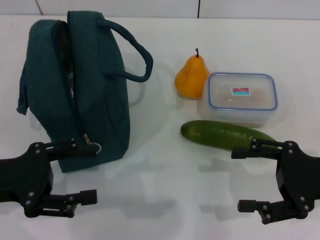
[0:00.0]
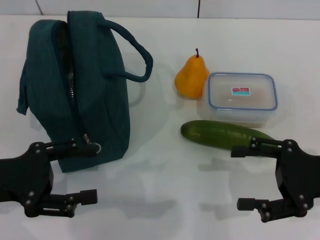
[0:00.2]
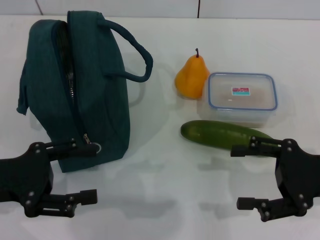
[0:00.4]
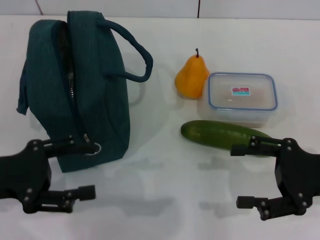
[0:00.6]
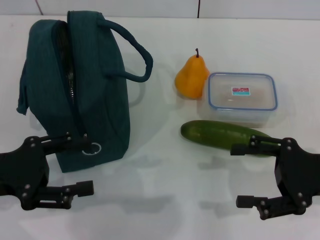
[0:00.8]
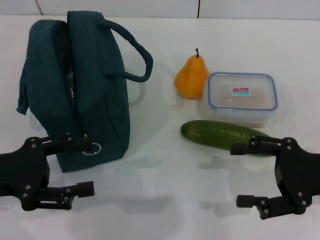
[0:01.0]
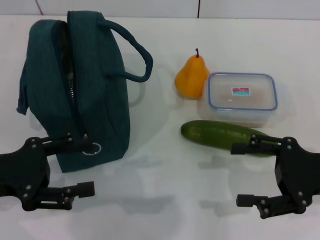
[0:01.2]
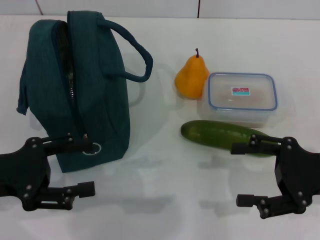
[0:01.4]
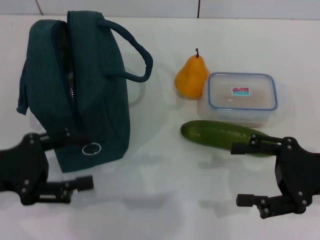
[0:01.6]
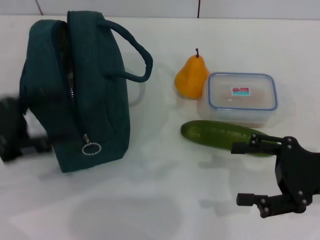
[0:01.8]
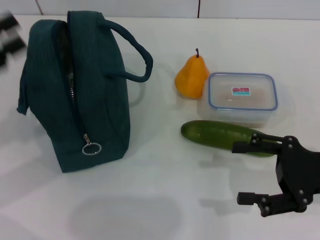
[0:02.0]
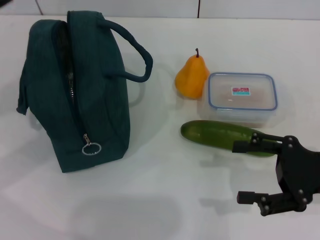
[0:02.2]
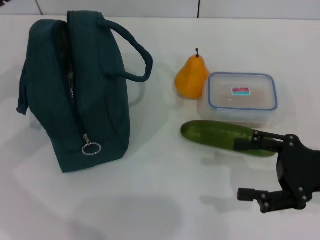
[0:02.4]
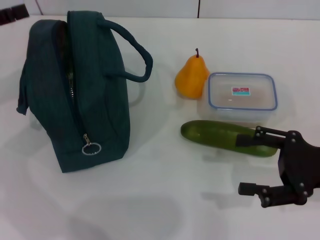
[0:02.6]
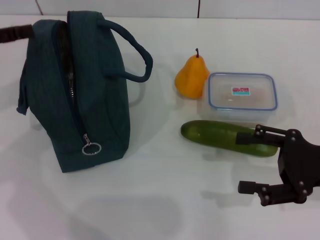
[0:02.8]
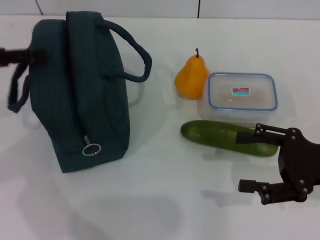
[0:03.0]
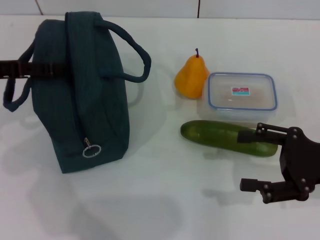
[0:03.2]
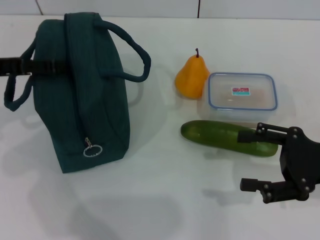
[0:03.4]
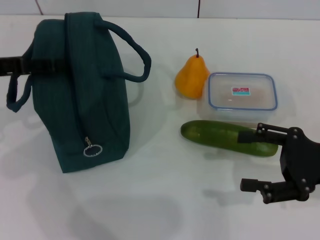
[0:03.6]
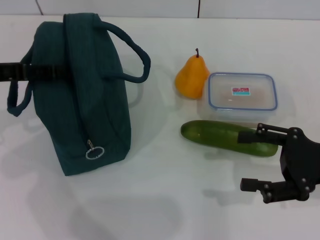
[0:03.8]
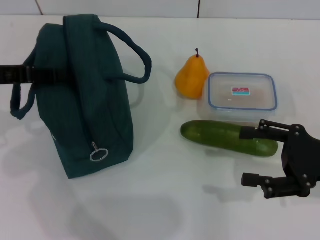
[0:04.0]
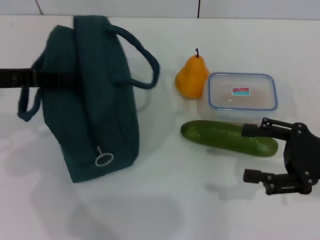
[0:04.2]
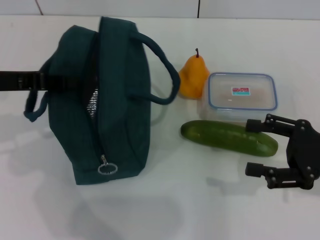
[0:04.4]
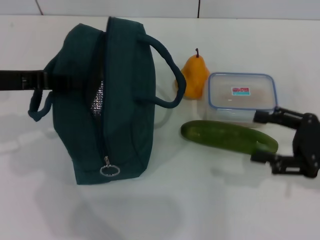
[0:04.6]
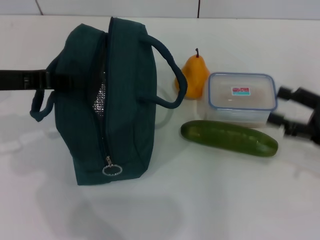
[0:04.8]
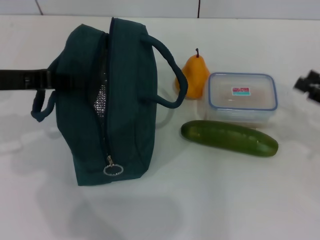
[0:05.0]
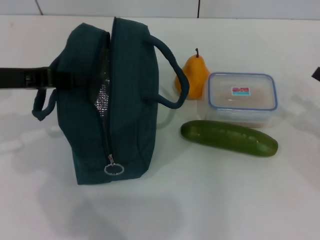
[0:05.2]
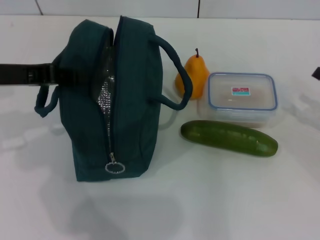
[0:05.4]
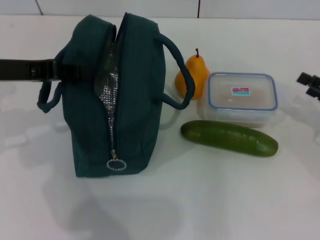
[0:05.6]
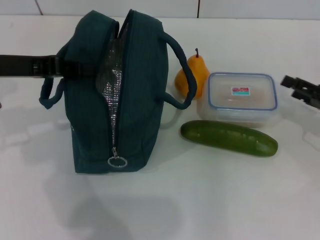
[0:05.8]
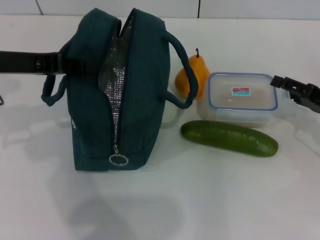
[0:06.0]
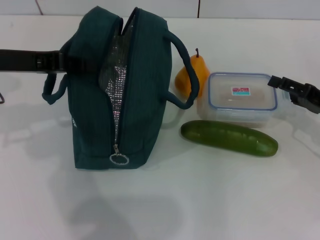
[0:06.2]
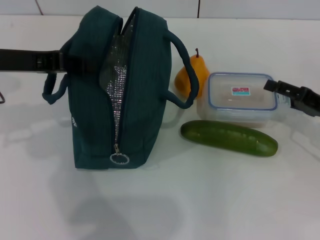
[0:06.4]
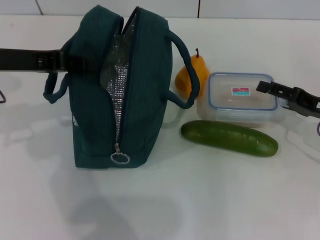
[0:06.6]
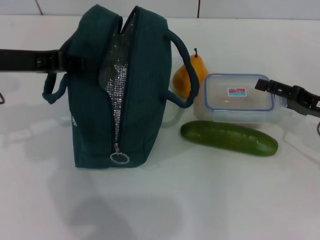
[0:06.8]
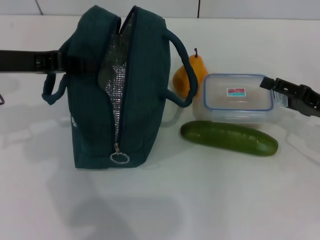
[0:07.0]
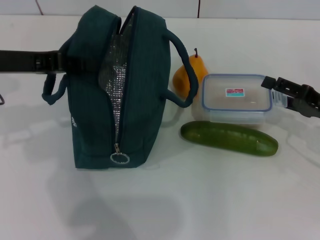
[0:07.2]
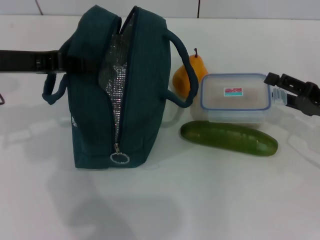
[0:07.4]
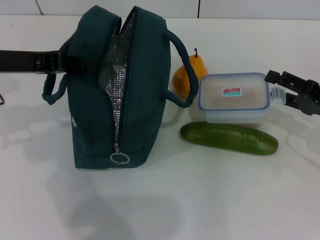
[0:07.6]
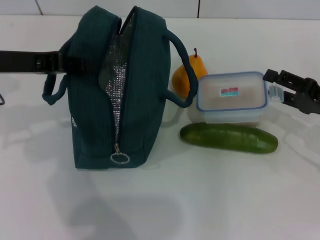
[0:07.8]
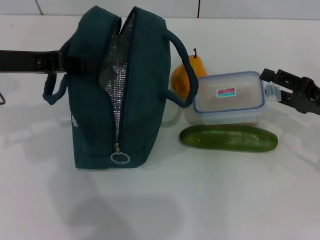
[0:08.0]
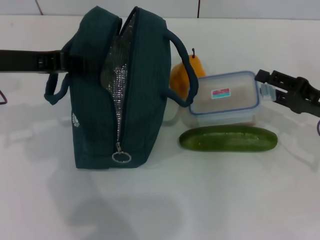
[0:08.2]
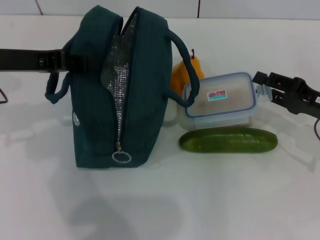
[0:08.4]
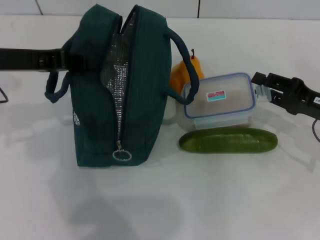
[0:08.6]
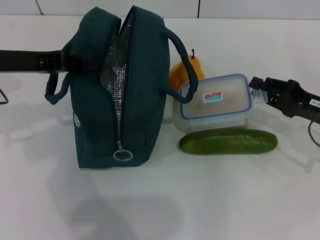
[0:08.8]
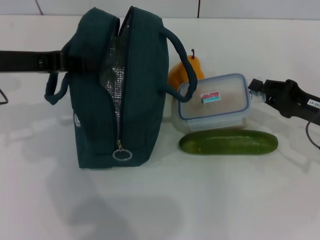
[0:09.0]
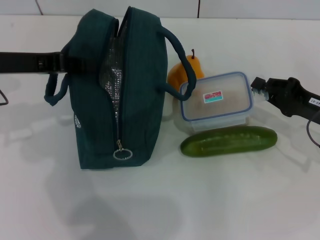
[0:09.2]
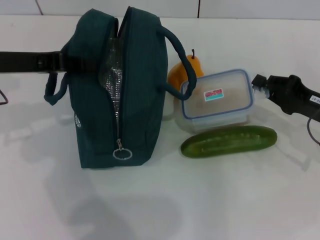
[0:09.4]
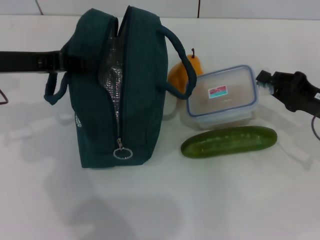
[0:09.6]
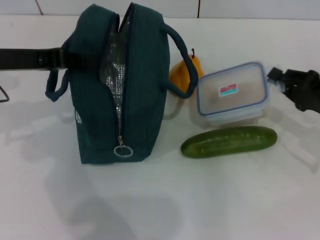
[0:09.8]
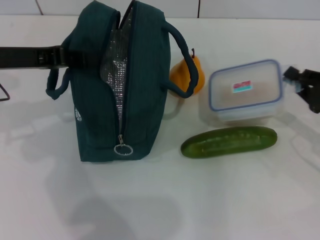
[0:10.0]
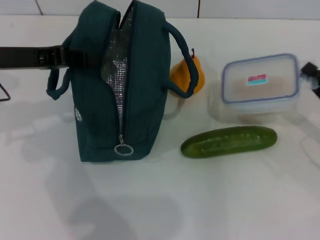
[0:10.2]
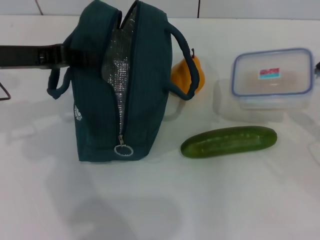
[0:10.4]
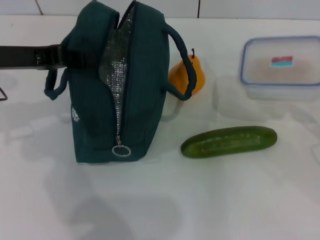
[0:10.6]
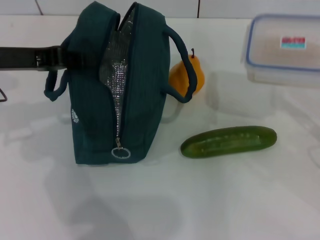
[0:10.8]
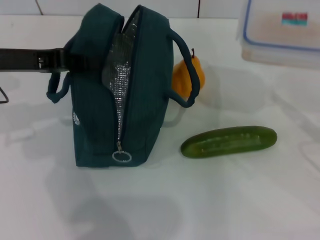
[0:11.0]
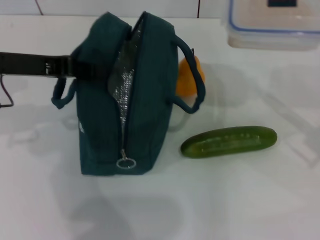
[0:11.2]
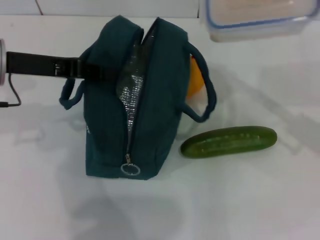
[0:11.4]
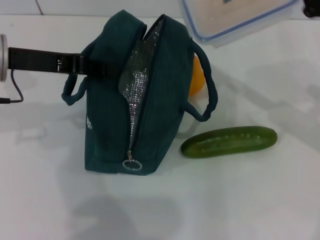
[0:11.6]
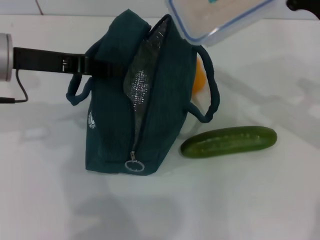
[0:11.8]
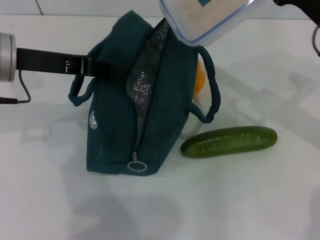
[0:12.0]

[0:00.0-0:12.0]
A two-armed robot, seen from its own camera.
Step, 0:00.0 to 0:05.0: Hold the lunch bag with your left hand.
Step, 0:05.2 to 0:09.4: Pick up the lunch box with your right hand.
0:00.0 to 0:01.6: Both grippers stay about where they are.
0:01.6 to 0:03.0: The left gripper is displaced forward and upward by about 10 cm.
0:03.0 to 0:04.4: The left gripper closes.
0:04.4 to 0:06.0: The right gripper travels forward by some 5 cm.
0:06.0 to 0:07.6: The grippers move only a little.
0:07.6 to 0:09.0: The right gripper closes its fingers.
0:09.0 to 0:10.4: The right gripper goes about 5 cm to the right.
0:10.4 to 0:12.0: The right gripper moves to the left, upward and forward, roughly 15 cm.

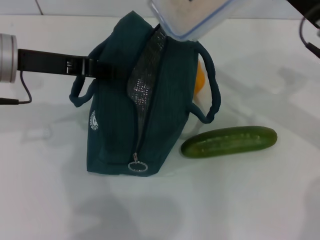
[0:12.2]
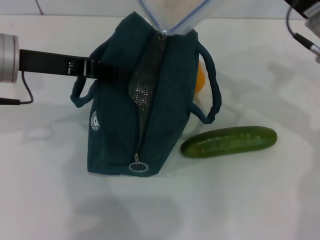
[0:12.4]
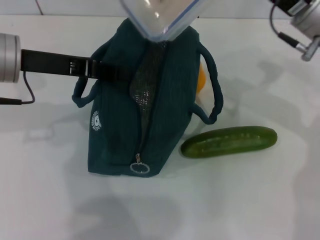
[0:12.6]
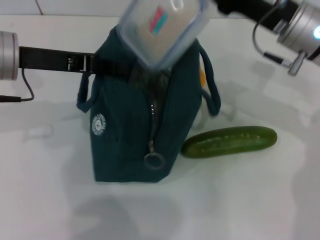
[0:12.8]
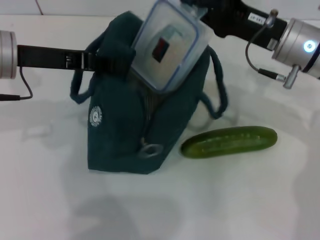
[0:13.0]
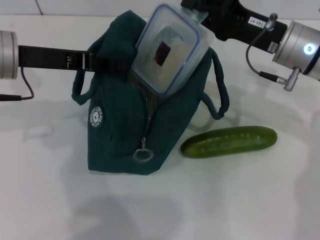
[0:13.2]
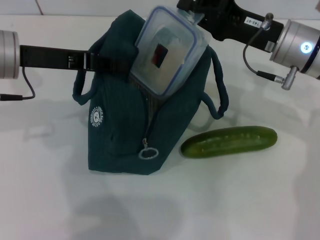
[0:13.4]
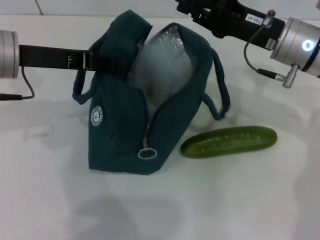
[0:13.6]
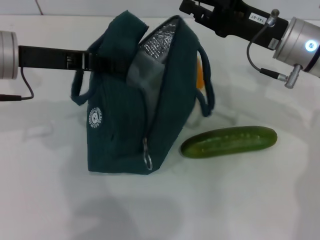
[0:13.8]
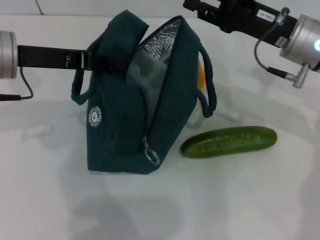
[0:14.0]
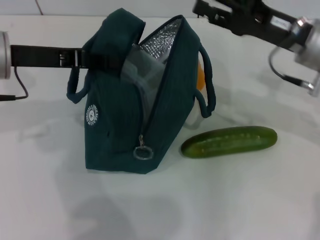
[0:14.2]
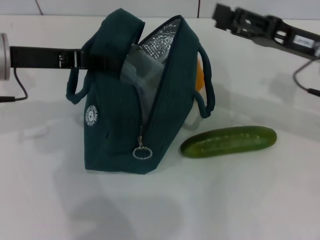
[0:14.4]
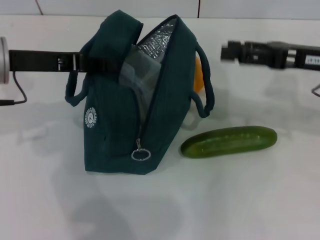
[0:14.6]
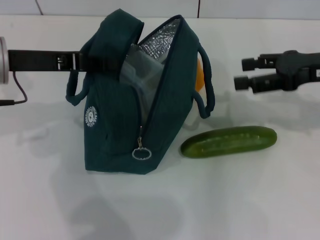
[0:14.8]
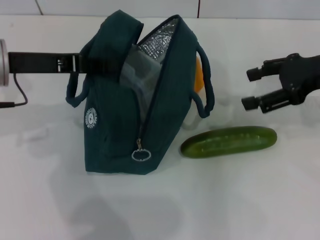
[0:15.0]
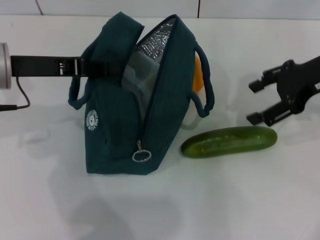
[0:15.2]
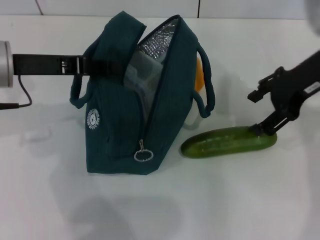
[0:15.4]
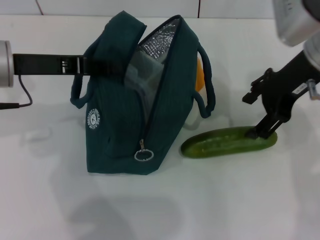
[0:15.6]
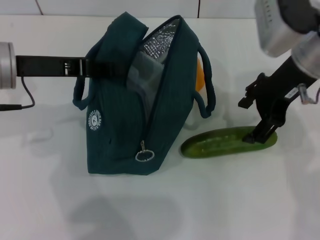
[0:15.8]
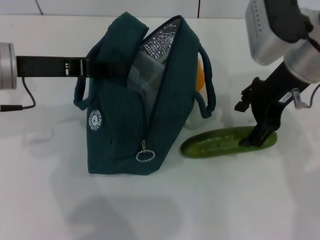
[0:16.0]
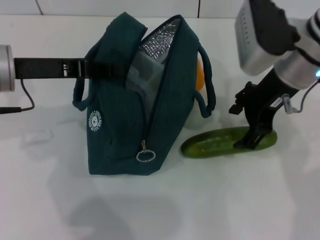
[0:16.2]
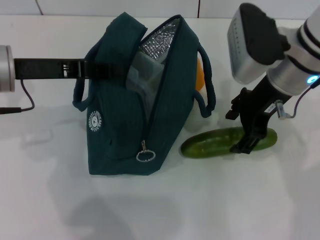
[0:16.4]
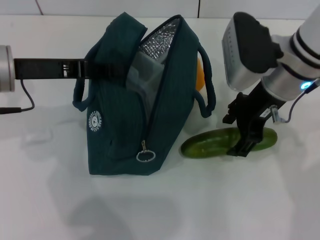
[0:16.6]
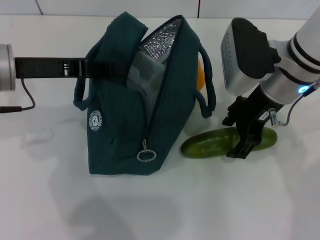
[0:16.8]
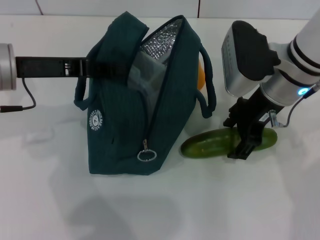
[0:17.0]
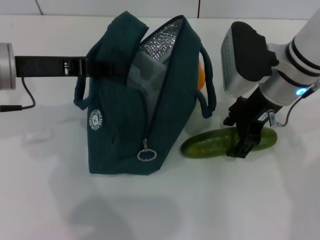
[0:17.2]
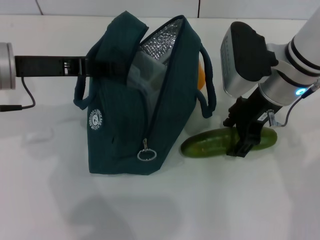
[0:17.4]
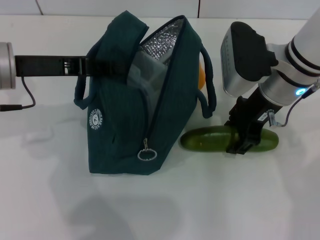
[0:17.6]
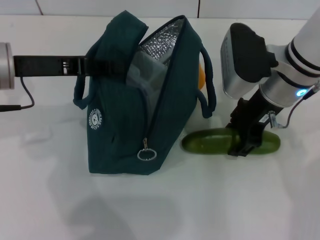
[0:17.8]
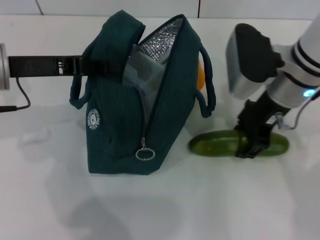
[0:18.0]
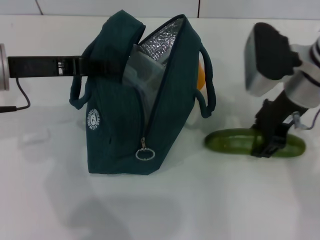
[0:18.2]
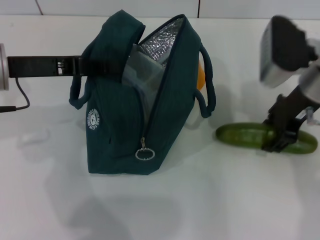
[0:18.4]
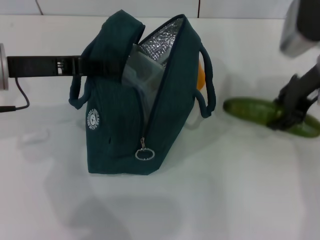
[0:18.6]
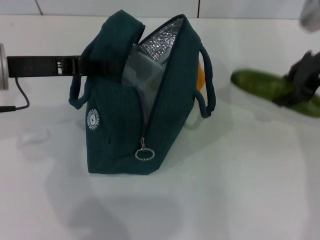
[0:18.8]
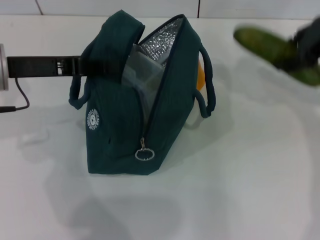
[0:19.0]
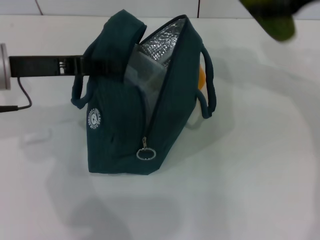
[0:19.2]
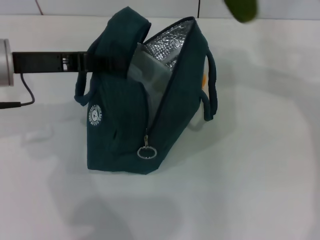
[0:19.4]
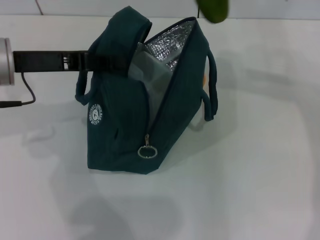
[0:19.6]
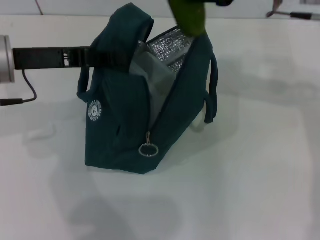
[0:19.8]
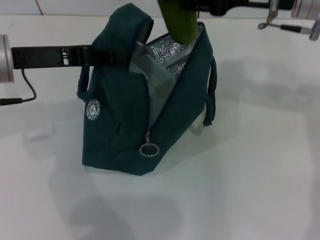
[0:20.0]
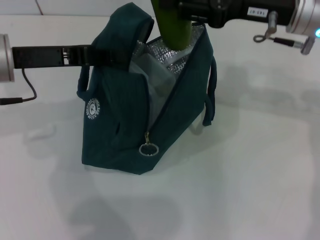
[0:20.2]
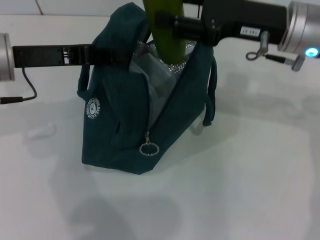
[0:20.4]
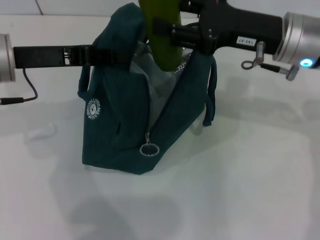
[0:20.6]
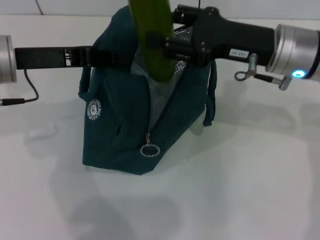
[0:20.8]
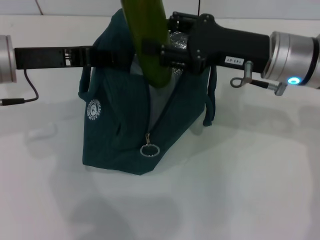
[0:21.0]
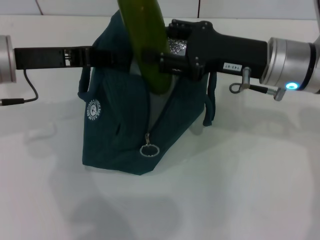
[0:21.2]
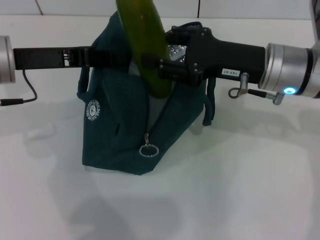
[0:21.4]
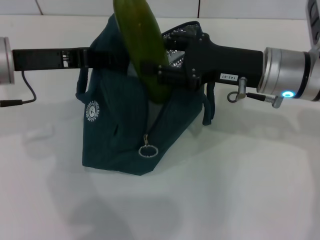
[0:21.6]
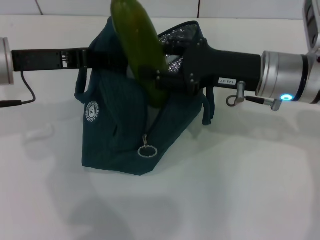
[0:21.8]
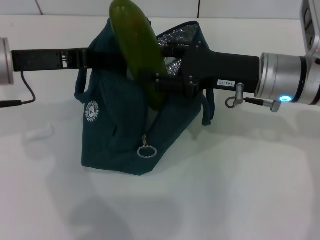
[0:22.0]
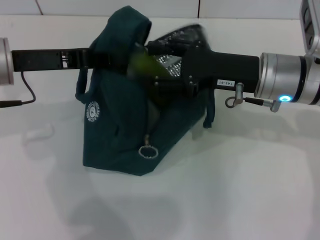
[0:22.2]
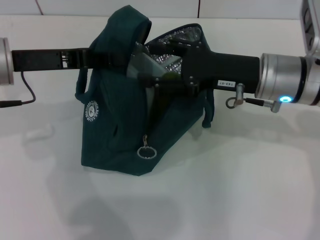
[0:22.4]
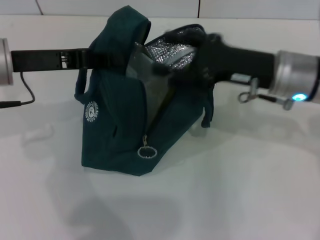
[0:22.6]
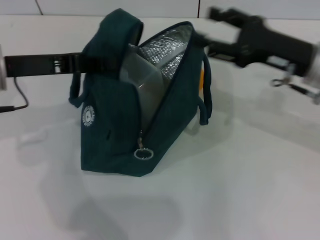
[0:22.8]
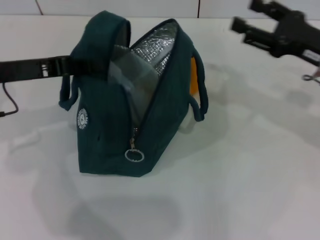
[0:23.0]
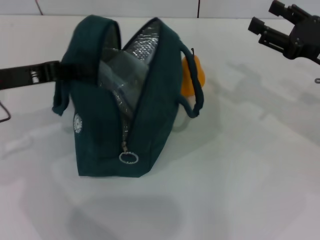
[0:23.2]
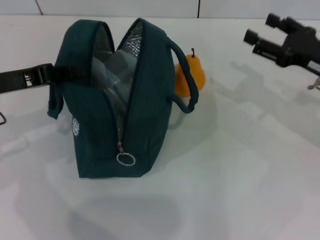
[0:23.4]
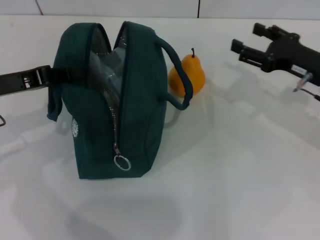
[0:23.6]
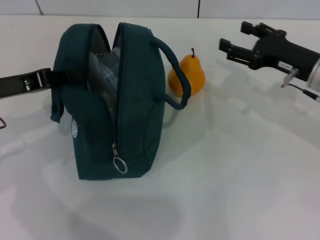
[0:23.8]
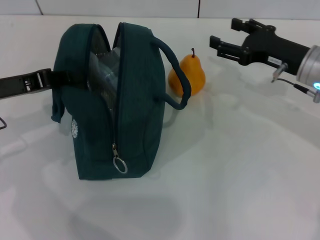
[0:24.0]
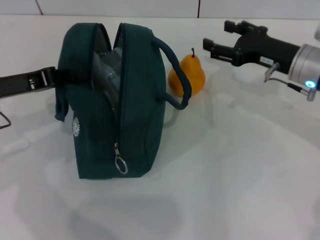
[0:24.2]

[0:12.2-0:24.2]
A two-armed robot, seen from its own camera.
Step, 0:13.6 to 0:17.4: Pick up the cucumber with your right hand.
Step, 0:17.6 to 0:22.2: Put the cucumber into the lunch bag with your right hand.
0:13.8 to 0:15.2: The right gripper moves to the right and upward, approximately 10 cm, and opens its fingers.
0:15.2 to 0:16.6: The right gripper goes about 10 cm to the left.
0:16.6 to 0:18.2: There are only small adjustments of the grippers.
0:18.2 to 0:19.8: The right gripper goes some 10 cm upward.
0:19.8 to 0:21.2: The right gripper goes roughly 10 cm downward.
0:21.2 to 0:22.6: The grippers make only small movements.
0:22.6 to 0:24.2: The left gripper shifts by roughly 5 cm.
